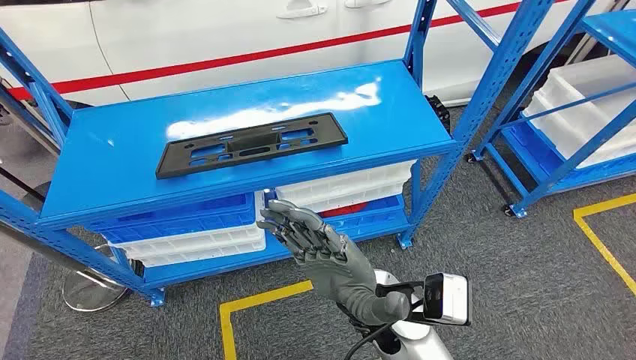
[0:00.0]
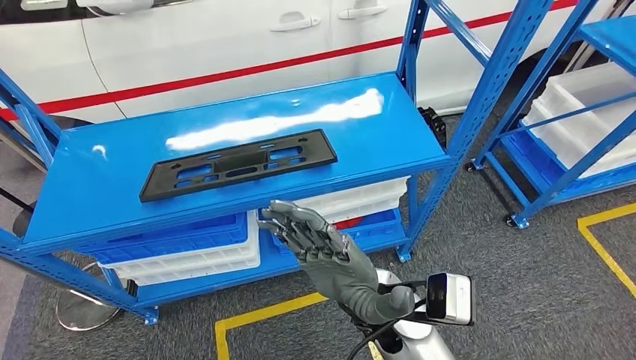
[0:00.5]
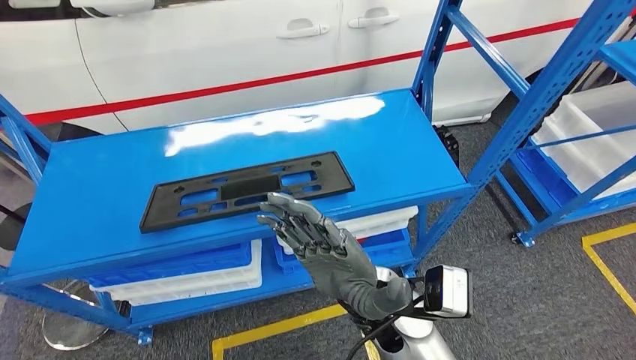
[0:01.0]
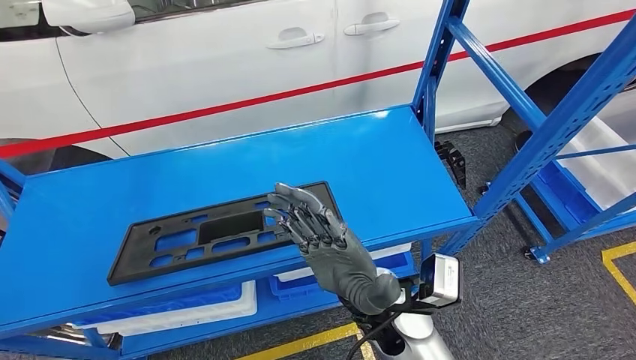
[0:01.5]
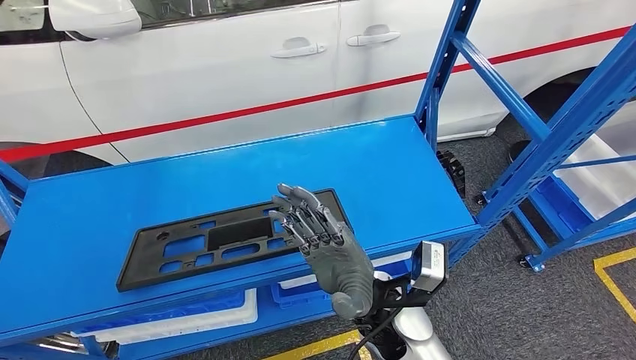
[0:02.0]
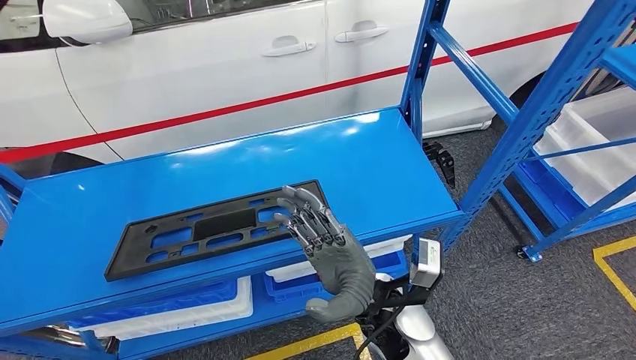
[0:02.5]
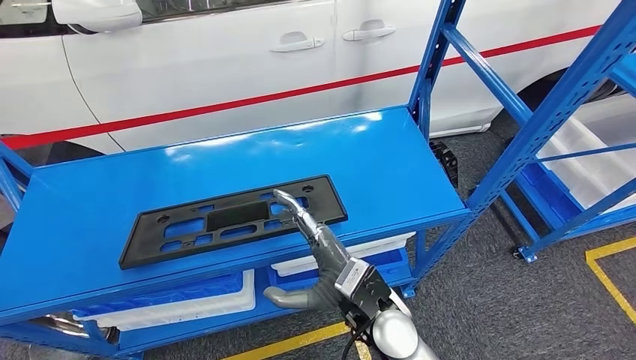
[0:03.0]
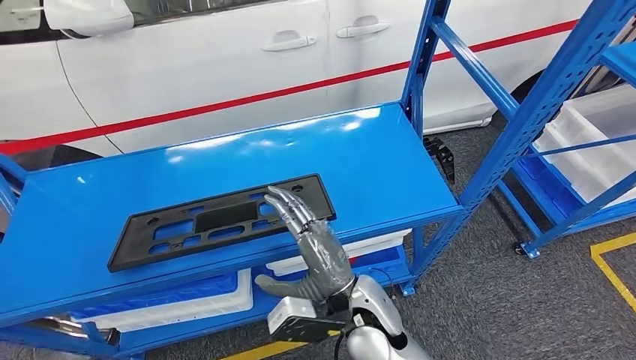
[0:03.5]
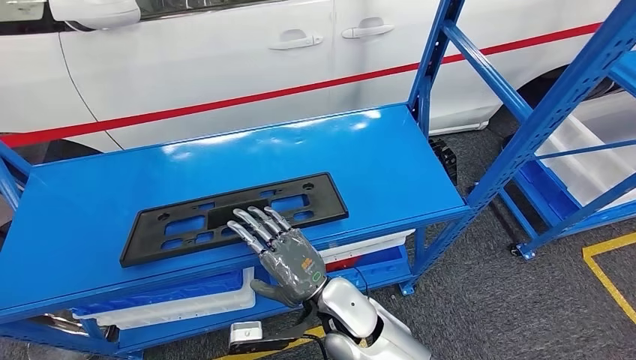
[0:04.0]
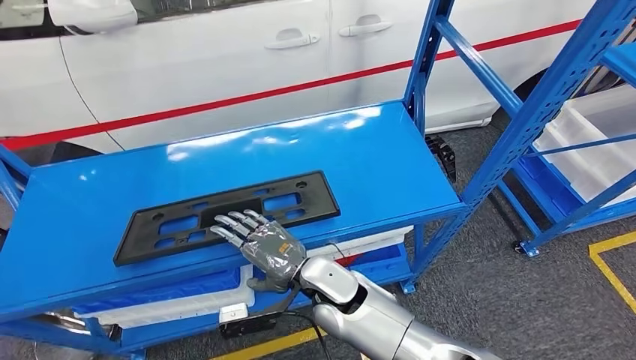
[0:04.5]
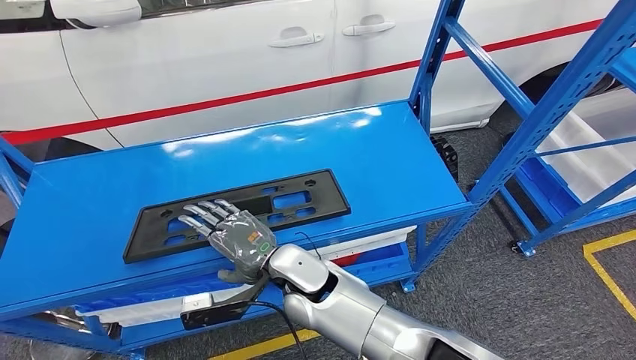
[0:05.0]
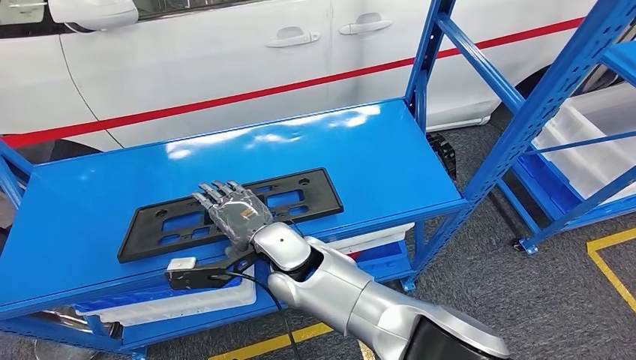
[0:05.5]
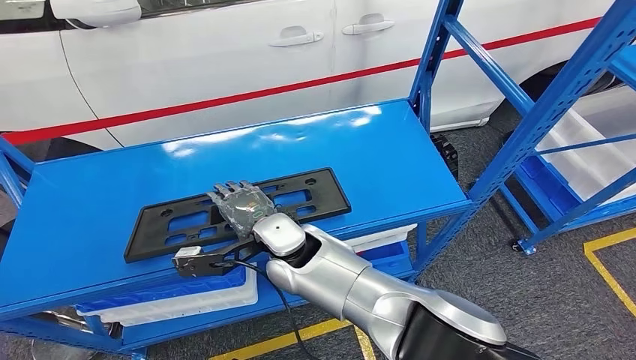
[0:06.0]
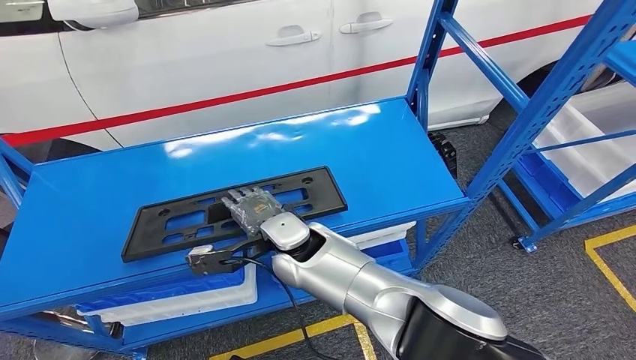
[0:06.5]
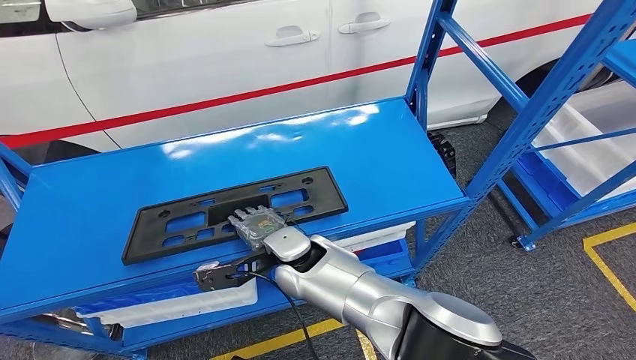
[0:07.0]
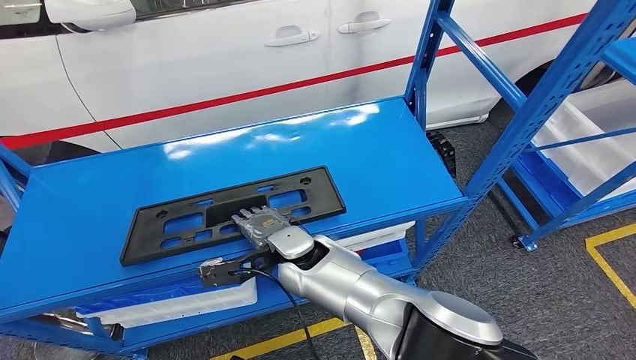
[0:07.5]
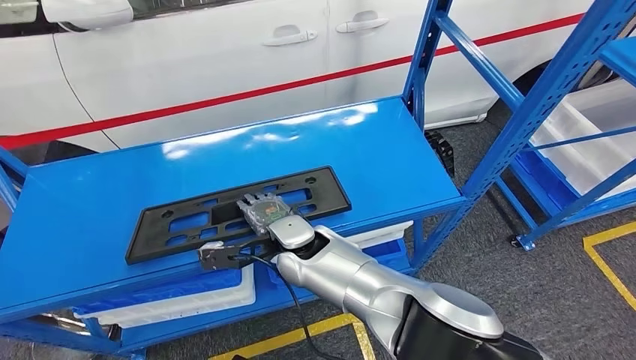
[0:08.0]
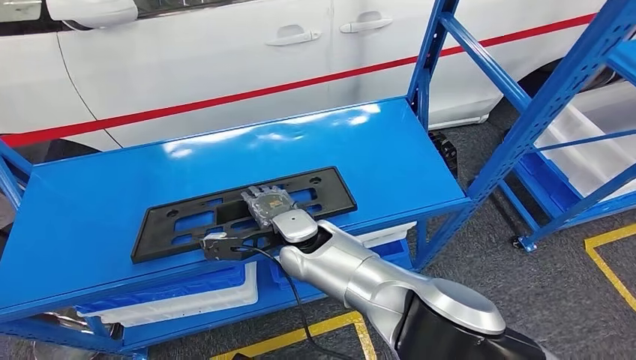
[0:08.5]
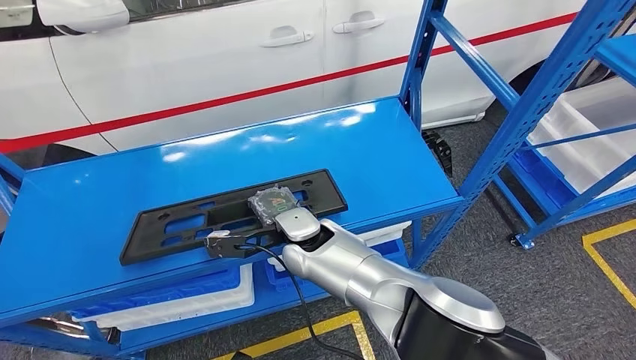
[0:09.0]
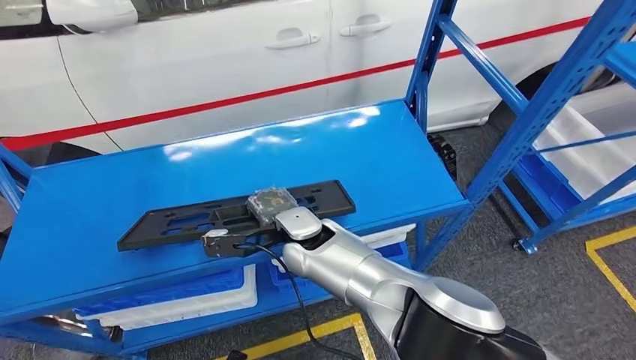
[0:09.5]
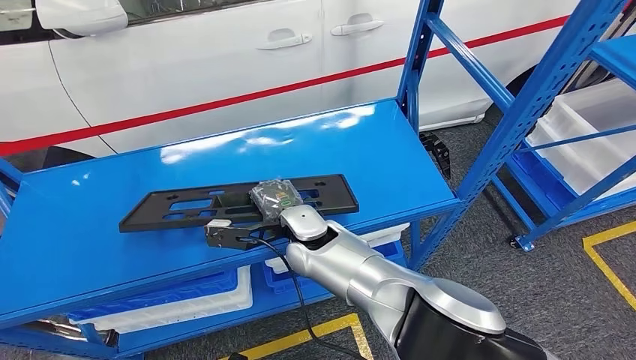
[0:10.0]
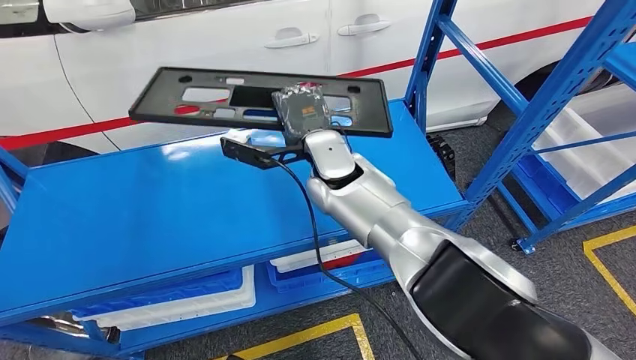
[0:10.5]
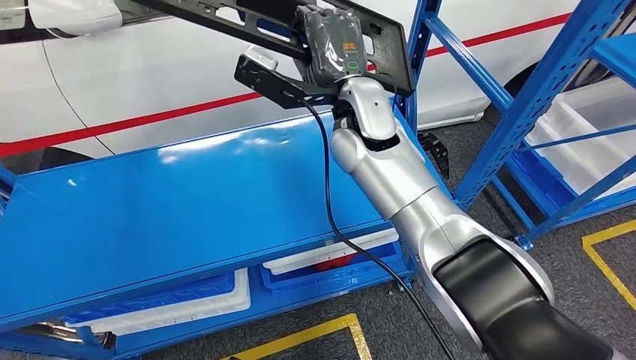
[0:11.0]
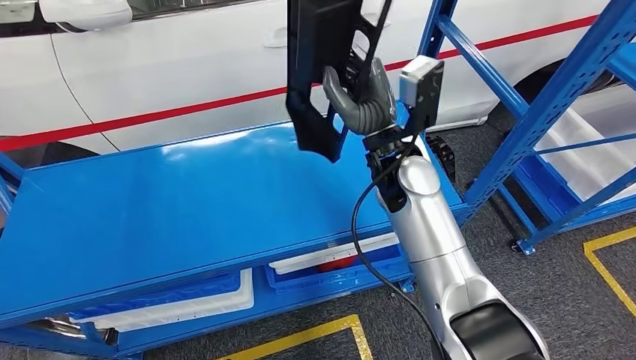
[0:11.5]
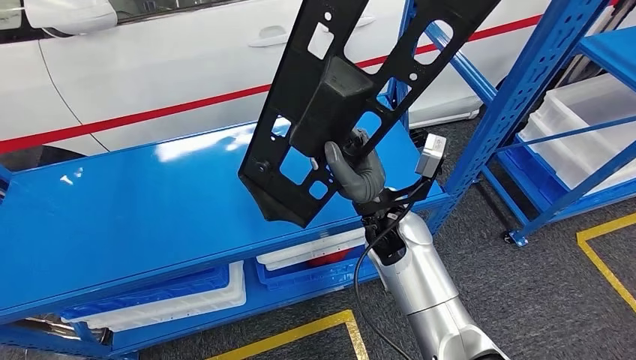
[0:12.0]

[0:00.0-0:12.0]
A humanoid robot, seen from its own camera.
Step, 0:00.0 to 0:06.5: Pick up the large material from the shelf.

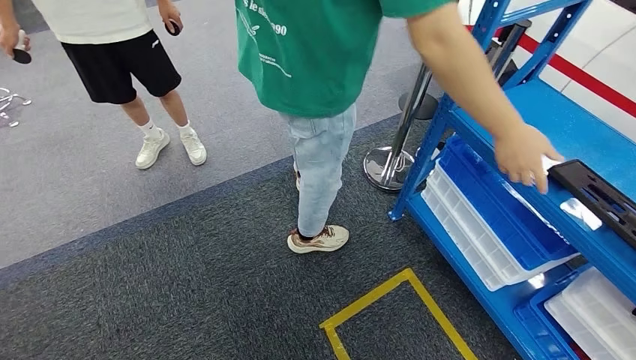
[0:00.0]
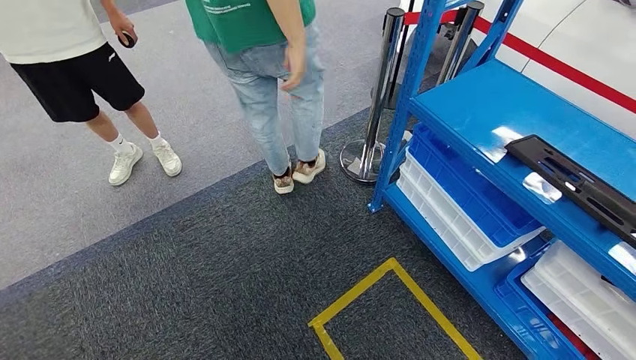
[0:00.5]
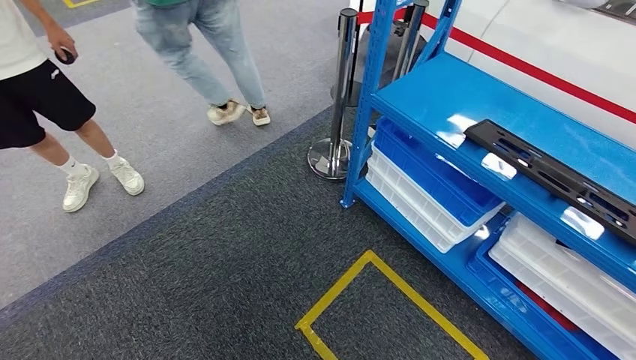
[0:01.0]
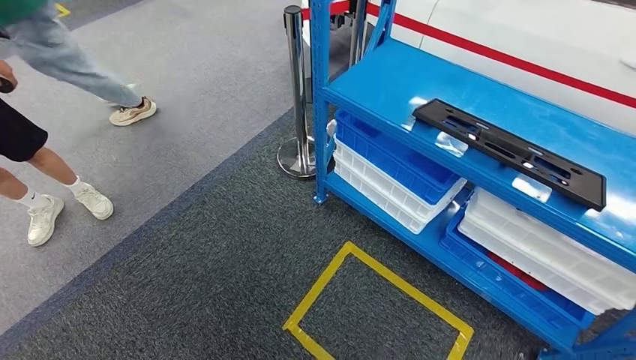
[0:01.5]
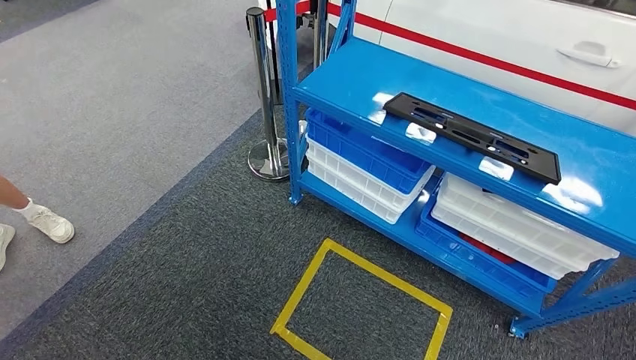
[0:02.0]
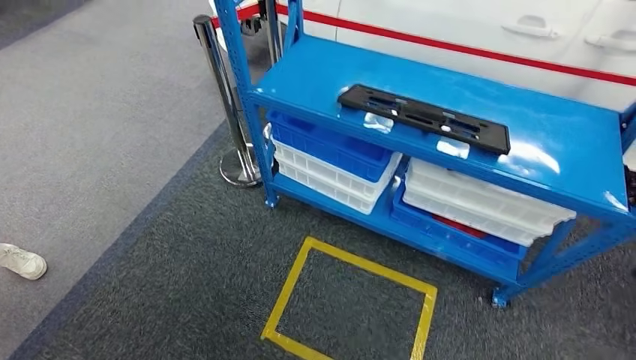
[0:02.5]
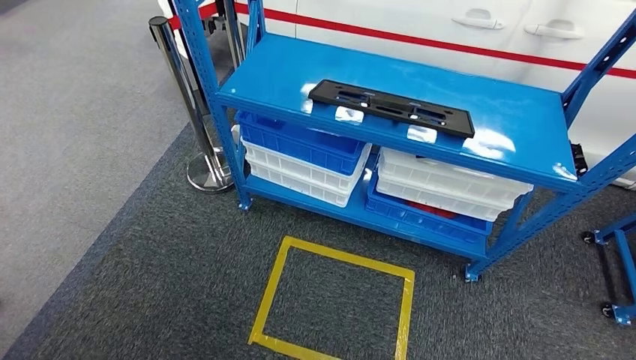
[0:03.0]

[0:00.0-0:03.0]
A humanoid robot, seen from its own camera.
Step, 0:00.0 to 0:03.0: Return to the initial position at the shelf.
